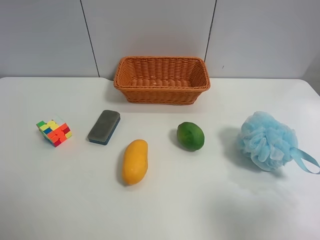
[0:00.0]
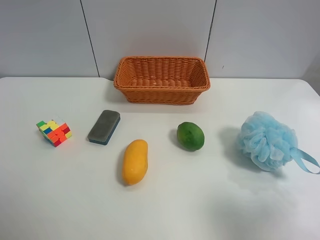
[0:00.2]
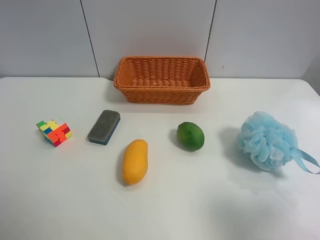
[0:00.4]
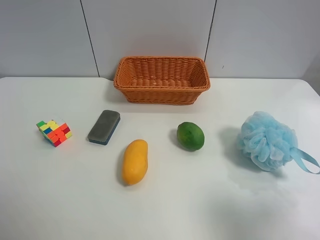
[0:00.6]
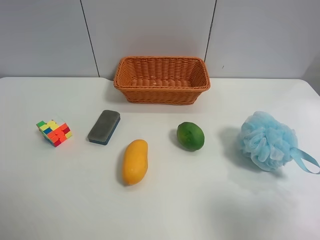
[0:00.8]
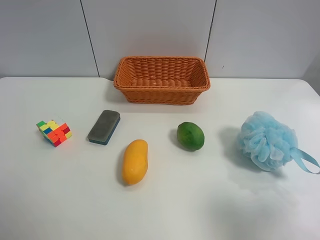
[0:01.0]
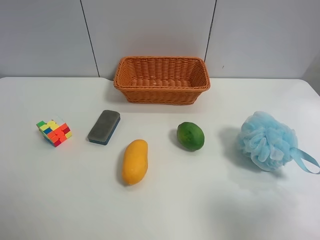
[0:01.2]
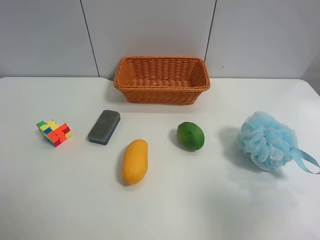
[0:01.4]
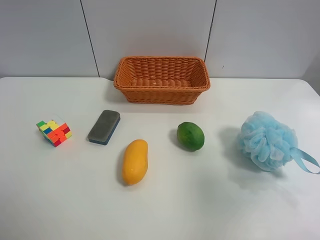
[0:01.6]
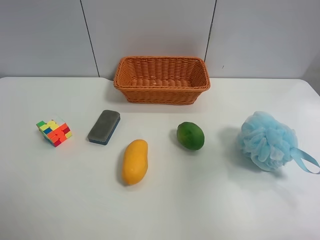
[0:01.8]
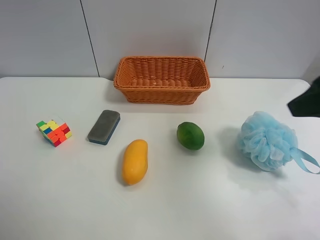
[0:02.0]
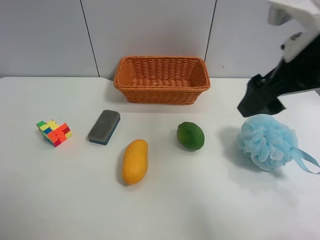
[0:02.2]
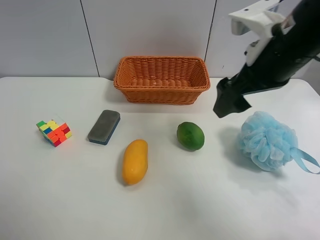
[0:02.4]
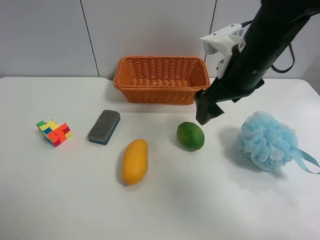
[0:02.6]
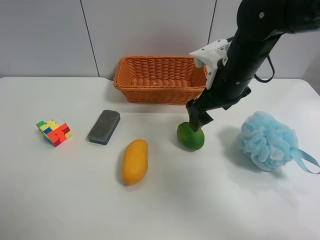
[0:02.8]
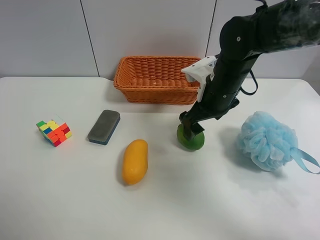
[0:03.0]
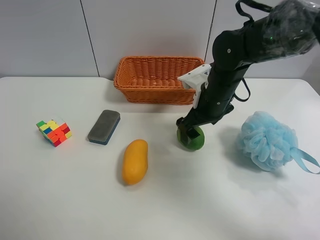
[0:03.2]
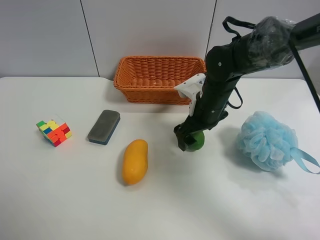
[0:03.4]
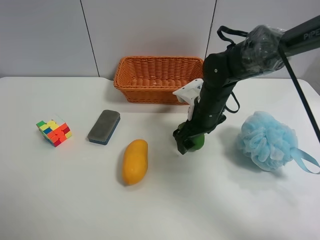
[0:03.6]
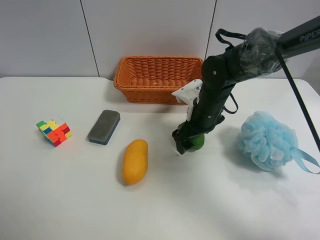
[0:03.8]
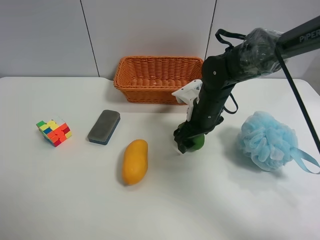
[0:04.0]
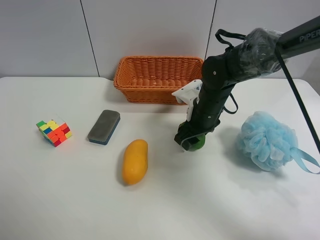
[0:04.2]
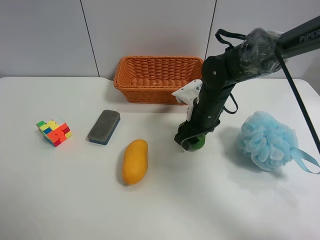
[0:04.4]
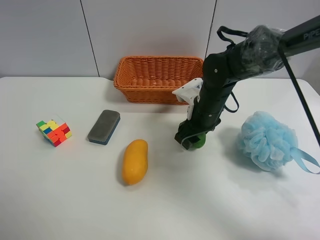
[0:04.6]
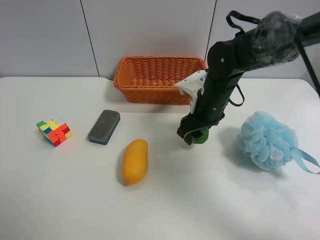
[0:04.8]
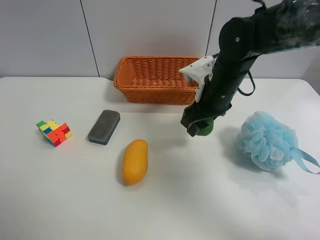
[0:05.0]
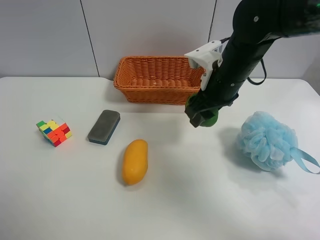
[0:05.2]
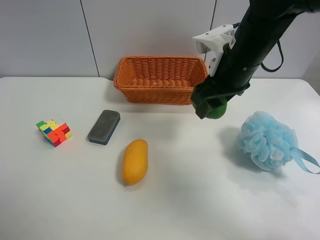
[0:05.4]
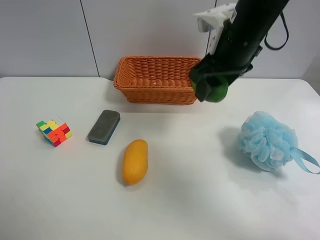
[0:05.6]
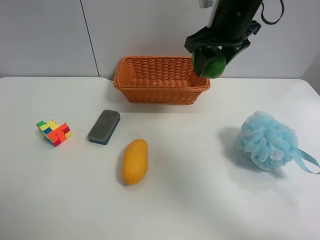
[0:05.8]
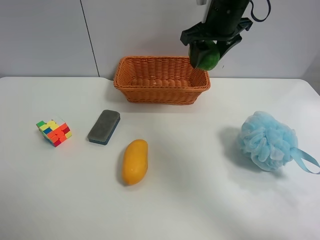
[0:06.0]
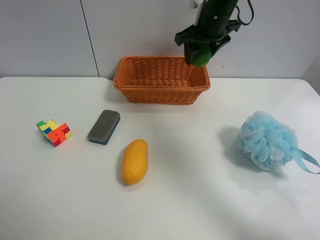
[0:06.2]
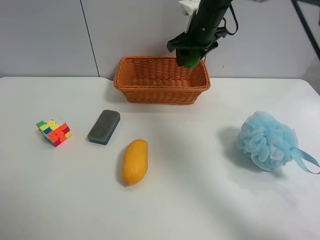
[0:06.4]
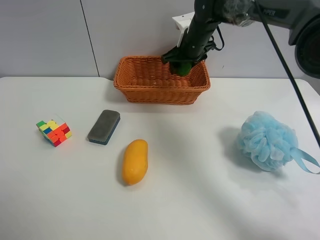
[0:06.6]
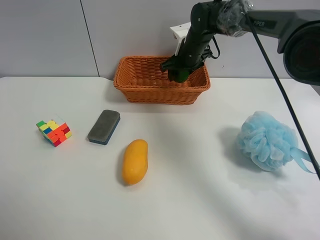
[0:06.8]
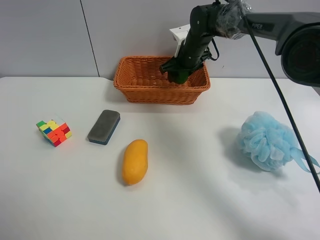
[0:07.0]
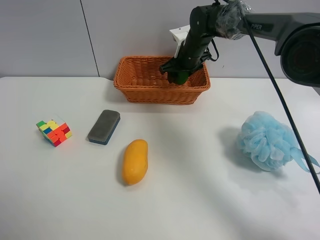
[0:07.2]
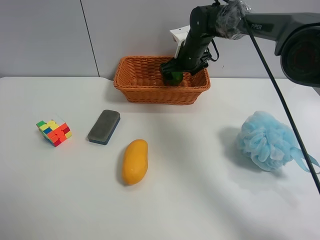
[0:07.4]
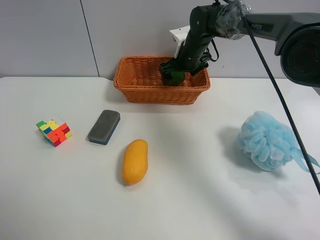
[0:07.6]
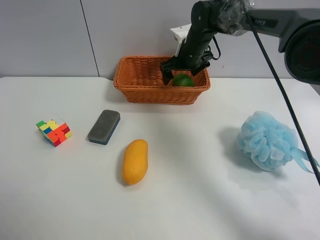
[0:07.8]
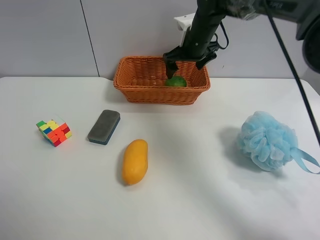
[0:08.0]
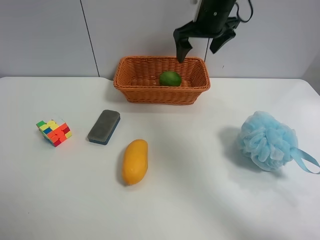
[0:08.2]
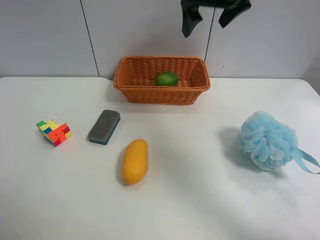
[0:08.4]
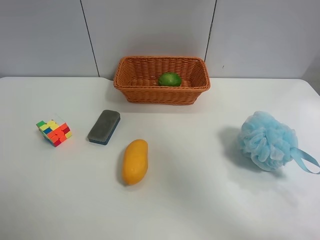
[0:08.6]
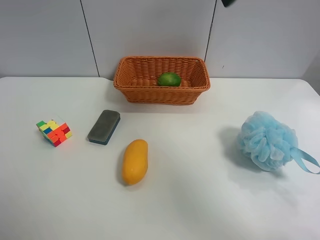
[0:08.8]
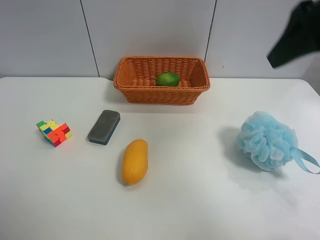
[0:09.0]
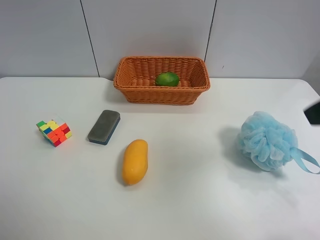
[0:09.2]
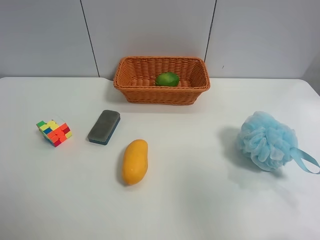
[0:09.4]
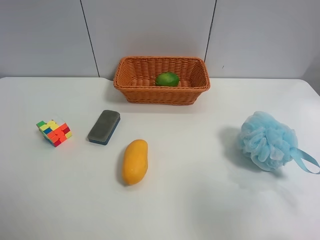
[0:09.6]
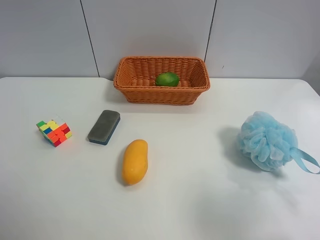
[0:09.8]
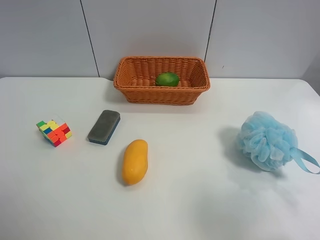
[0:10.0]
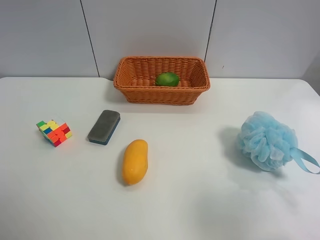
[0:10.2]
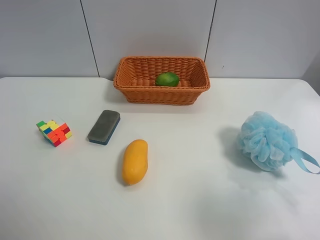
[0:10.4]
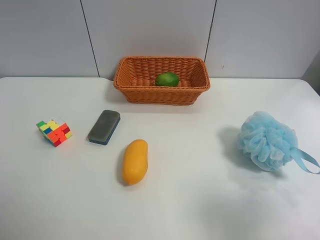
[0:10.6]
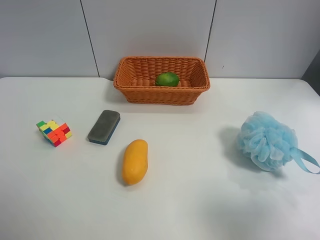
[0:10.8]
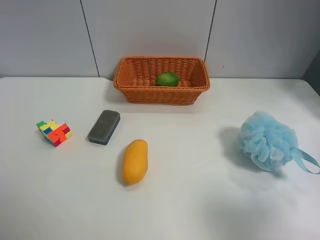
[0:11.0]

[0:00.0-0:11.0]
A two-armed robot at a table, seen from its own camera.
Task of the whole recording: Randomly grab green lemon or mangoes from the table and put them in a basket.
Step, 0:00.0 to 0:04.2: Grasp the Lemon with the right gripper.
Step, 0:04.4 to 0:08.2: Place the Lemon into the basket with the right gripper.
0:00.0 to 0:01.6: The right gripper moves forward and upward, some 10 cm.
0:01.6 to 0:03.2: The right gripper shifts approximately 35 cm forward, to the left and downward.
0:03.2 to 0:04.8: The right gripper closes its fingers.
0:04.8 to 0:06.2: The right gripper is displaced upward and forward by roughly 15 cm.
0:06.2 to 0:07.8: The right gripper shifts some 10 cm downward, and opens.
0:07.8 to 0:09.4: The right gripper goes roughly 40 cm backward.
0:09.4 to 0:11.0: The right gripper changes place by roughly 5 cm.

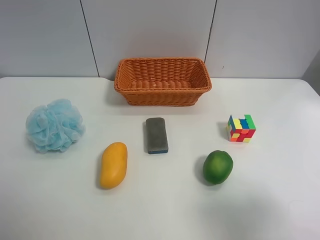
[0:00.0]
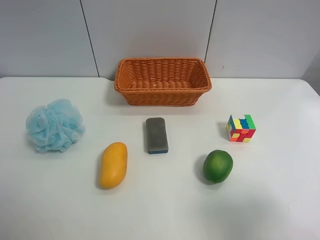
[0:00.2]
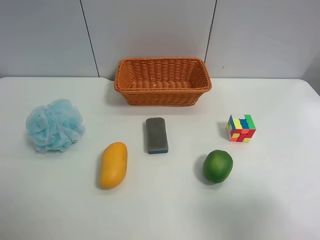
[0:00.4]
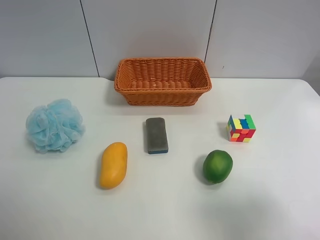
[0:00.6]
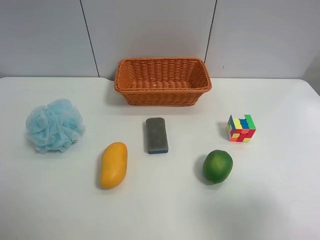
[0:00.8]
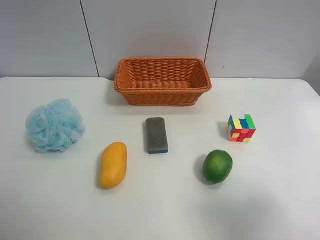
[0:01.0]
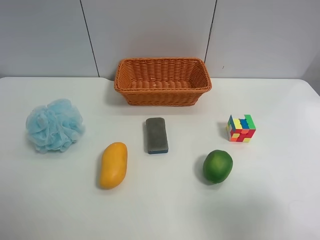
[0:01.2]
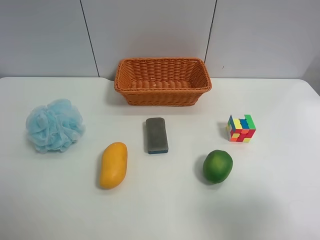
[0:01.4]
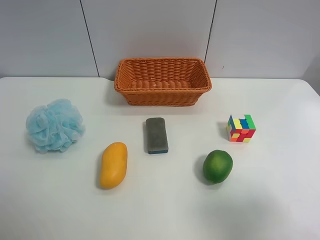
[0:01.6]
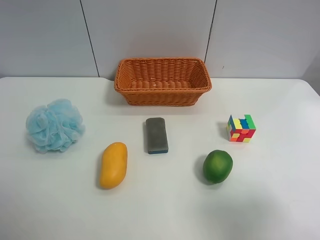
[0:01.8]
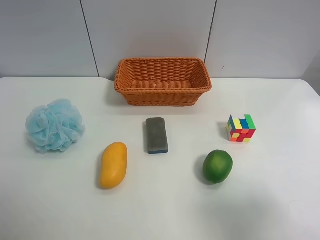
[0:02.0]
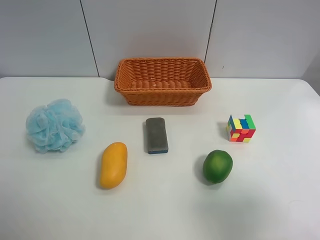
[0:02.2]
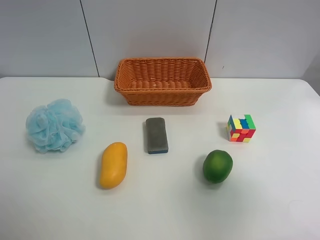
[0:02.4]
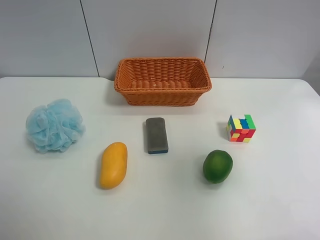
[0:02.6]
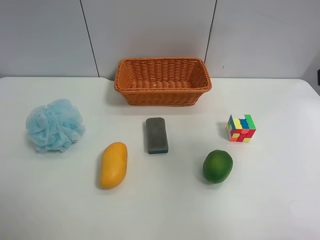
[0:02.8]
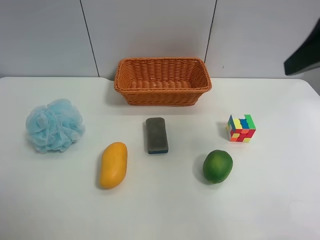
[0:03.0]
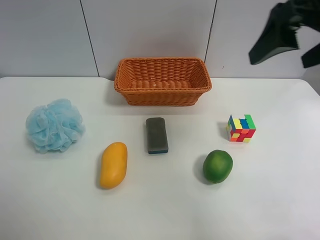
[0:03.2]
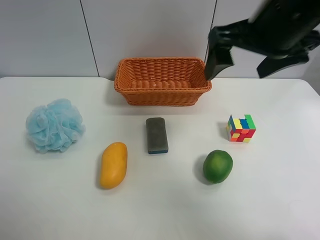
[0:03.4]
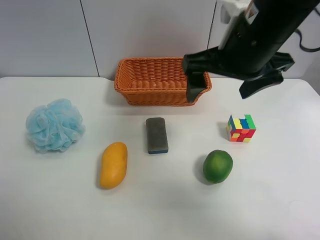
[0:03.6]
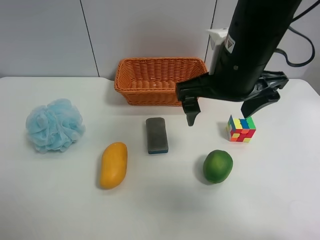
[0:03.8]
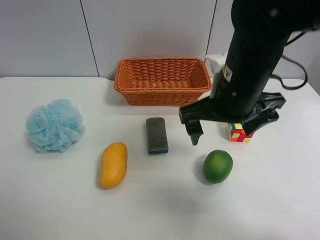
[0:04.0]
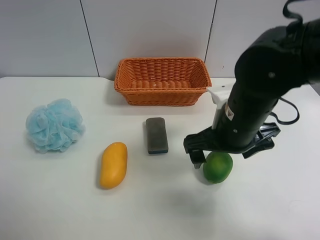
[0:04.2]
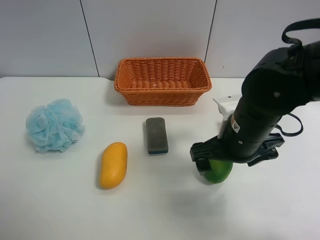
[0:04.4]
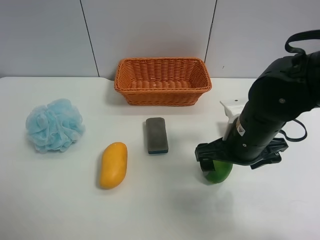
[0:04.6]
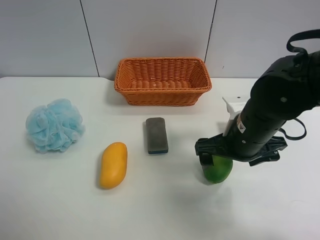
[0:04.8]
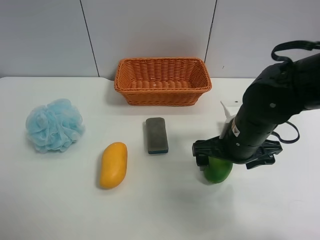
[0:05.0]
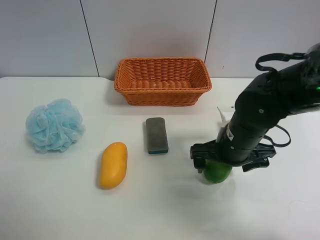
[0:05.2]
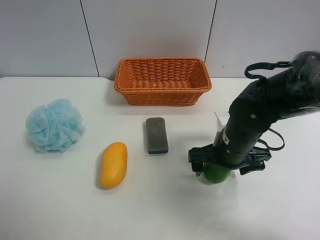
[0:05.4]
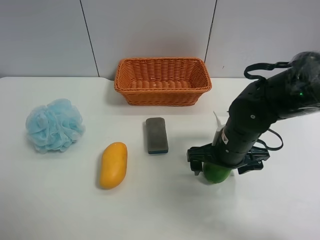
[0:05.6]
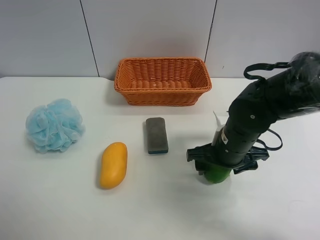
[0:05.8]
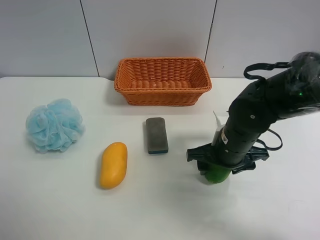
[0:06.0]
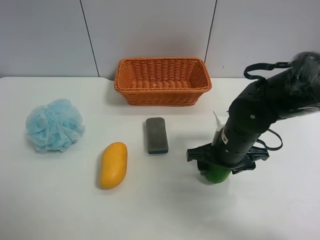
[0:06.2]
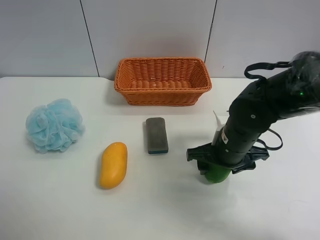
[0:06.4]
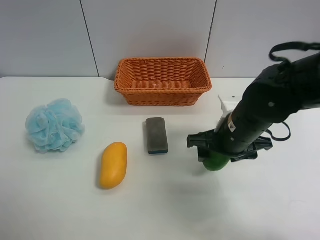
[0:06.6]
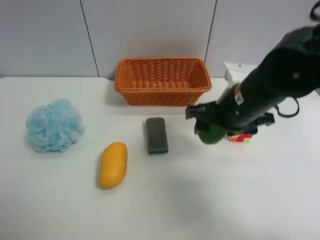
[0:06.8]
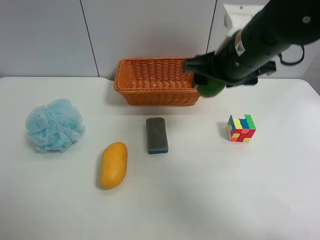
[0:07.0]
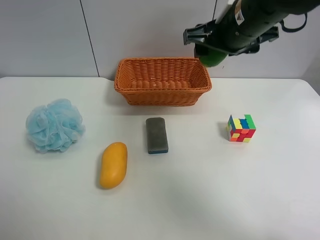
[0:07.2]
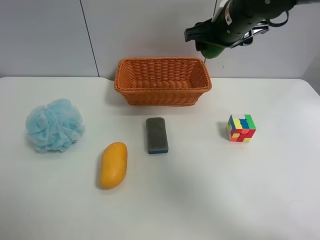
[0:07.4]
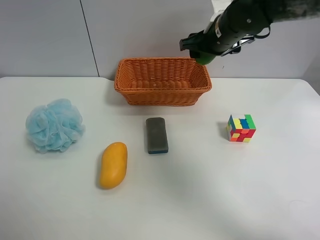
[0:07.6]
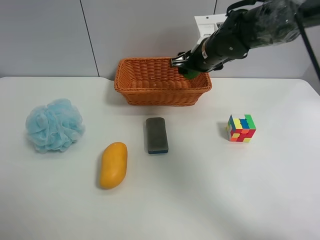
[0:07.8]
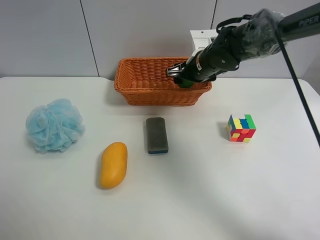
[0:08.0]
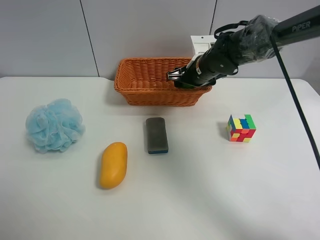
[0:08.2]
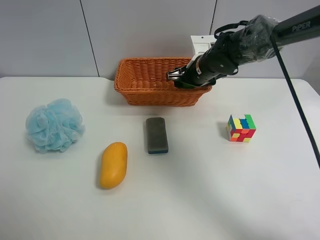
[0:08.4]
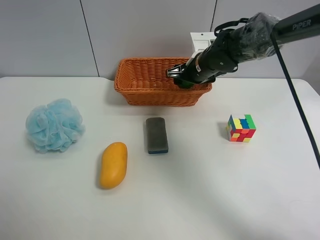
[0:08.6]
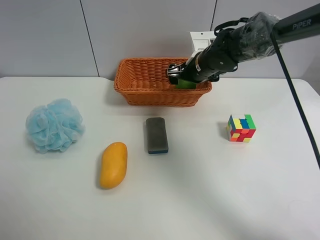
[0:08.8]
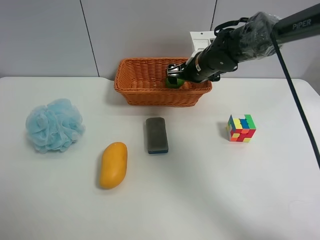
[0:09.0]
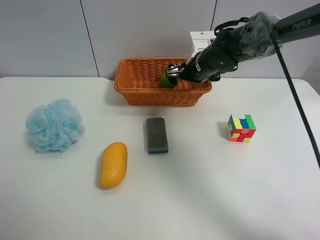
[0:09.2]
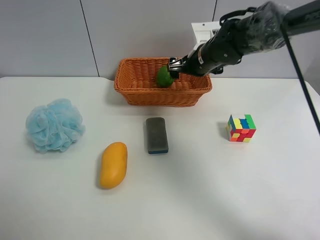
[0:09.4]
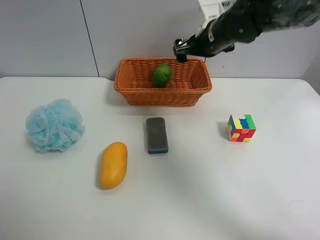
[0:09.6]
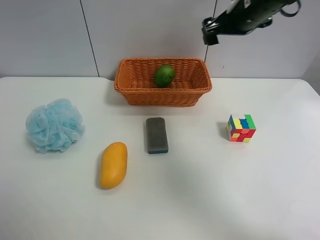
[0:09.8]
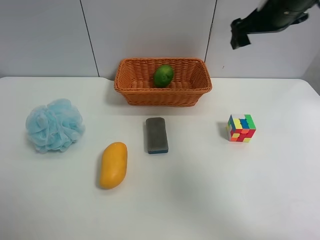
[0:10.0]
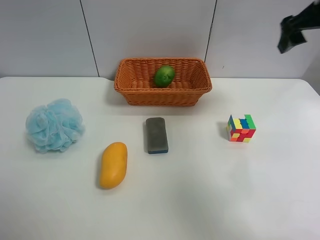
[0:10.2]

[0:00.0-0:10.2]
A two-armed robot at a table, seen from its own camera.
Task of the whole recording: Randomly grab green lemon or mangoes from the table and put them in a basket.
Step, 0:00.0 to 0:06.0: Grasp the Lemon with the right gripper.
Step, 0:06.2 to 0:09.8: Place the Lemon into the basket with the right gripper.
0:00.0 to 0:01.4: Both grippers stay about where they are.
0:01.4 to 0:03.0: The right gripper heads forward and upward, covering about 20 cm.
0:03.0 to 0:04.4: The right gripper heads downward and to the left, covering approximately 20 cm.
0:04.4 to 0:05.8: The right gripper goes approximately 5 cm downward, and closes up.
0:05.8 to 0:07.2: The right gripper is displaced upward by approximately 20 cm.
0:07.2 to 0:08.8: The right gripper heads downward and forward, covering about 20 cm, and opens its fingers.
0:08.8 to 0:10.2: The right gripper shifts some 25 cm upward, to the right and backward.

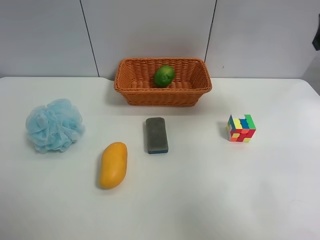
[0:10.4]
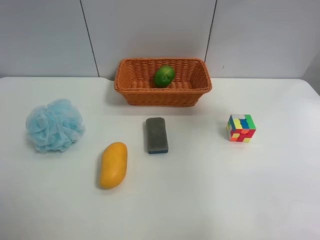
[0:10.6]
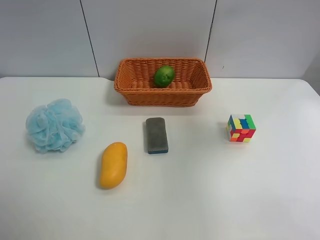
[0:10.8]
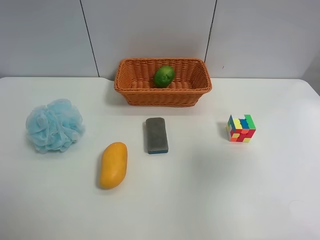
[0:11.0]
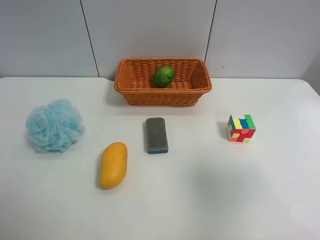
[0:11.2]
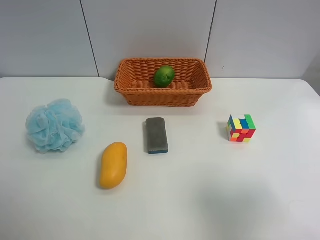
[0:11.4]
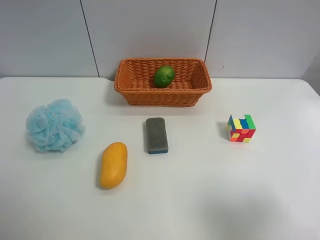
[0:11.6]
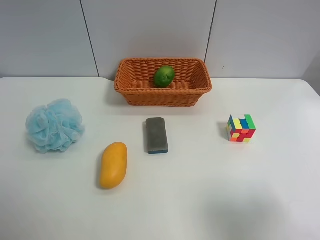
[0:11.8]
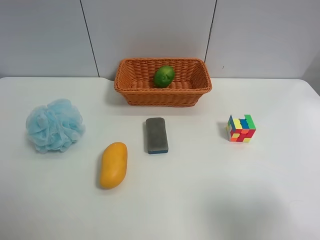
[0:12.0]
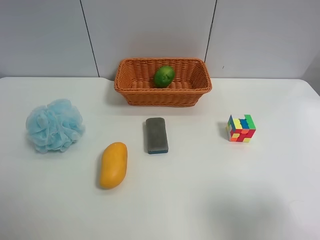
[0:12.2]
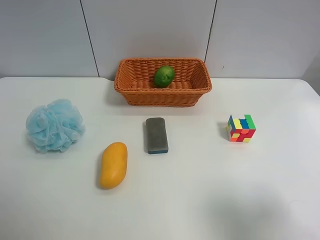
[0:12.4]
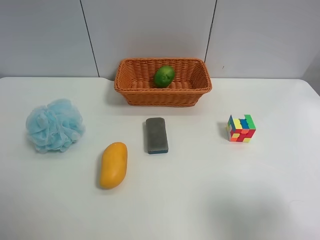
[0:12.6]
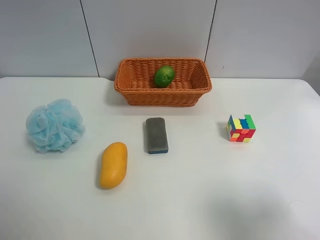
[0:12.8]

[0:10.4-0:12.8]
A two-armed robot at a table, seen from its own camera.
Task of the whole recording: Randomly grab green lemon or mangoes from the table and put them in a basket.
0:10.4 to 0:11.6: The right gripper is displaced backward by roughly 30 cm.
